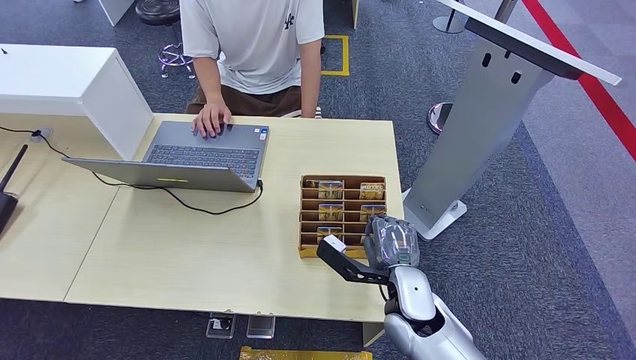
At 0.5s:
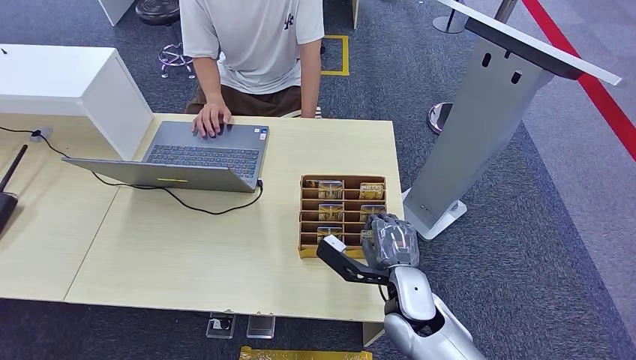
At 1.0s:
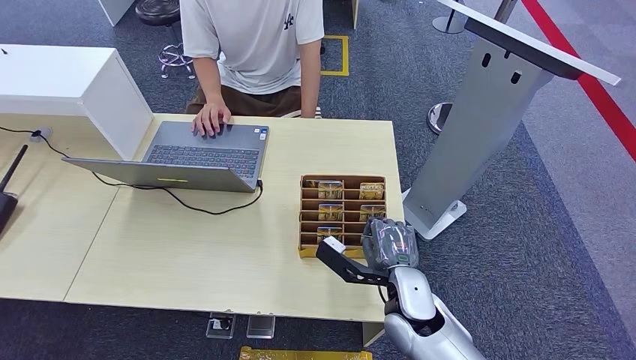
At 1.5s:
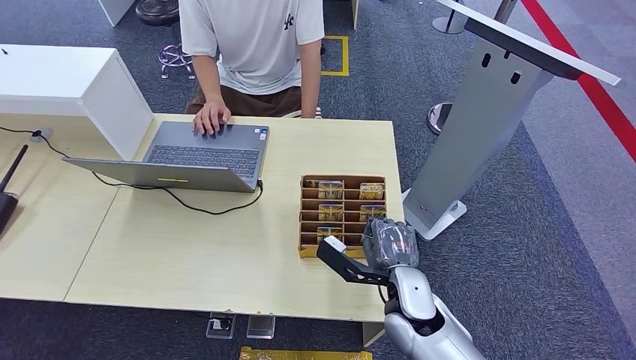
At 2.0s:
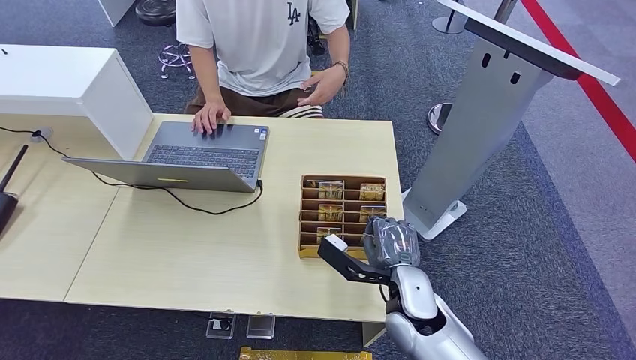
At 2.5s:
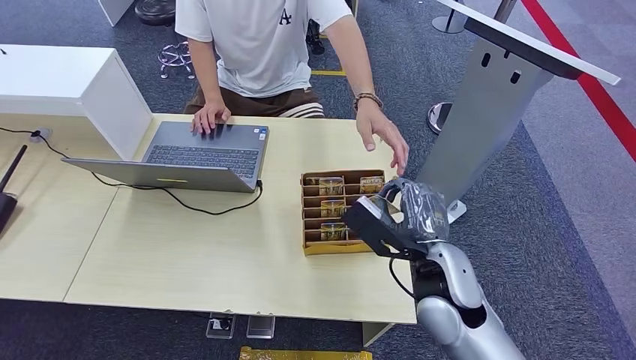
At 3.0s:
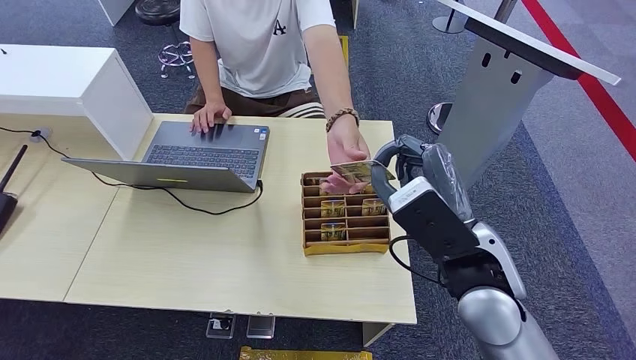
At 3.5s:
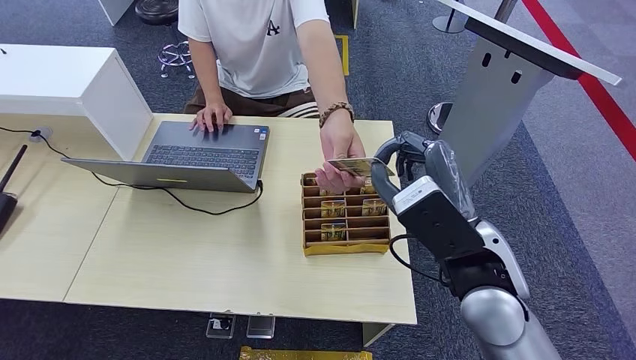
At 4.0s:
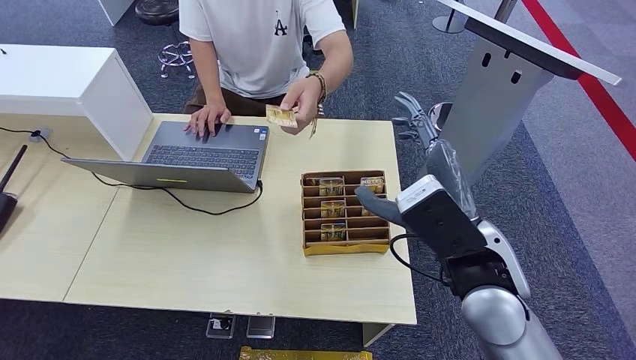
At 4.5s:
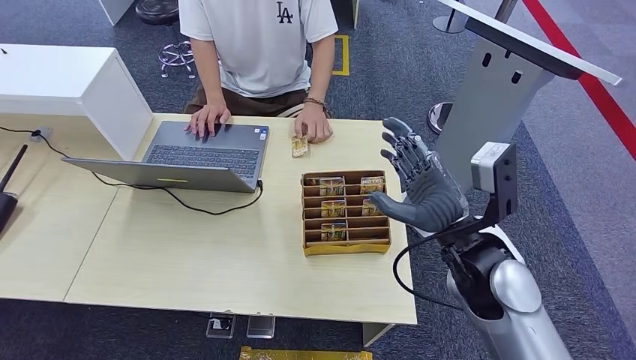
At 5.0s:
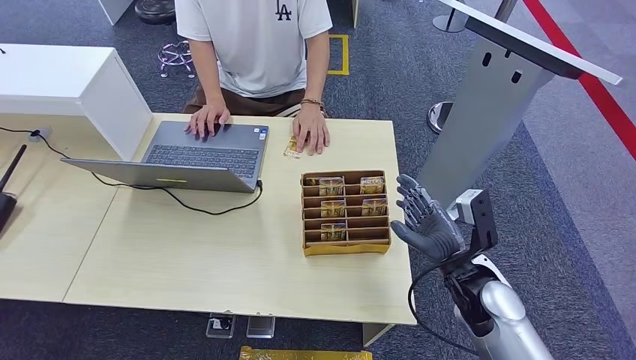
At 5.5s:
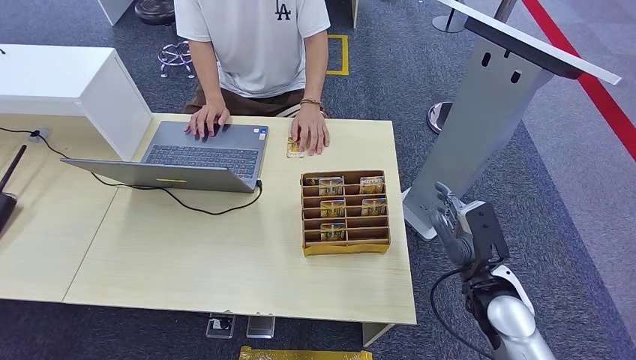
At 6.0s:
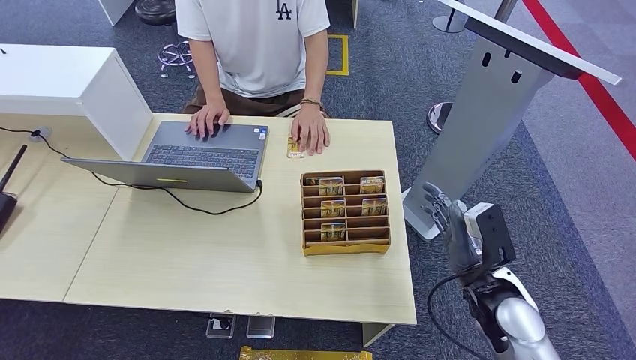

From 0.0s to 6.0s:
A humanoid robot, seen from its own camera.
Step, from 1.5s to 6.0s: Hand the key card to the target.
From 0.0s to 2.0s: The two hands keep their place.
From 2.0s to 4.0s: The right hand shifts roughly 20 cm upward.
From 4.0s to 6.0s: The right hand is displaced downward and to the right by about 20 cm.
